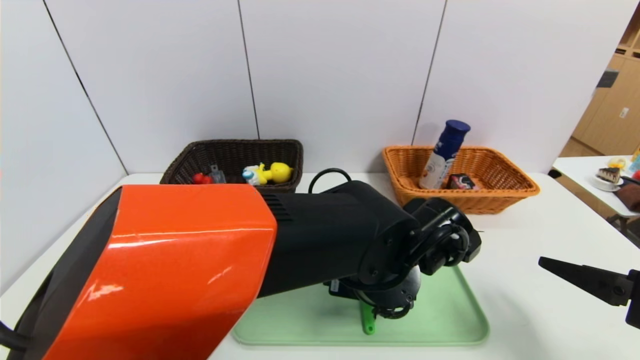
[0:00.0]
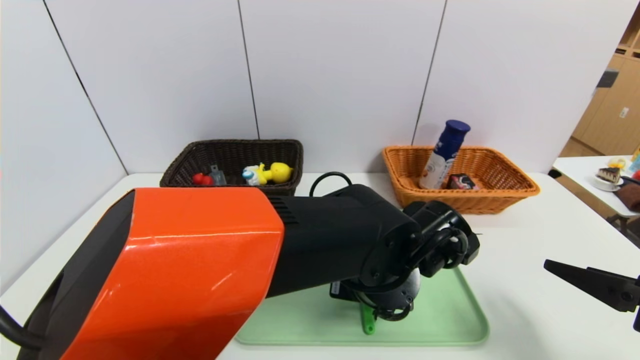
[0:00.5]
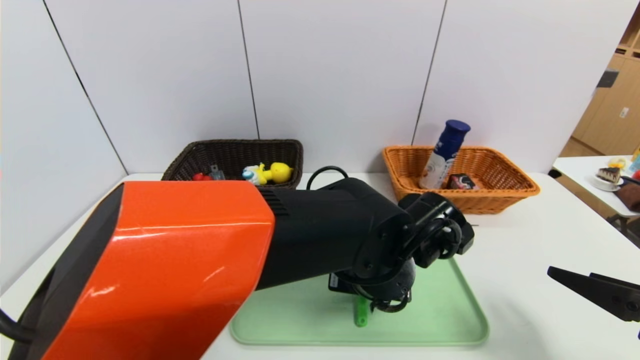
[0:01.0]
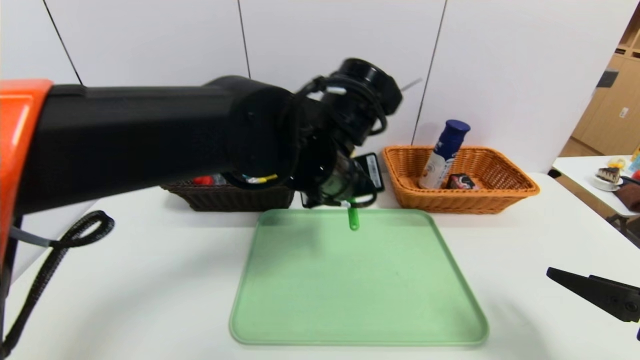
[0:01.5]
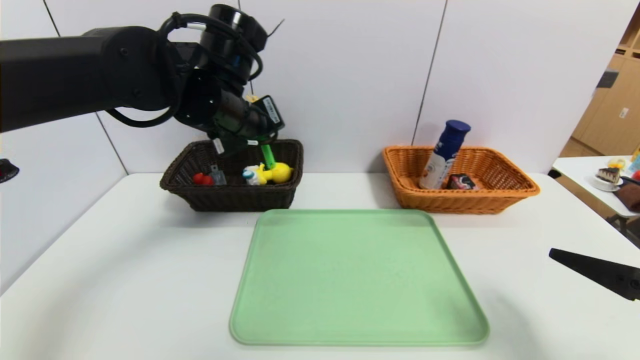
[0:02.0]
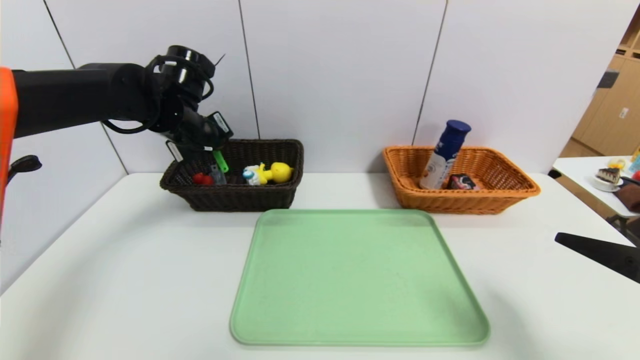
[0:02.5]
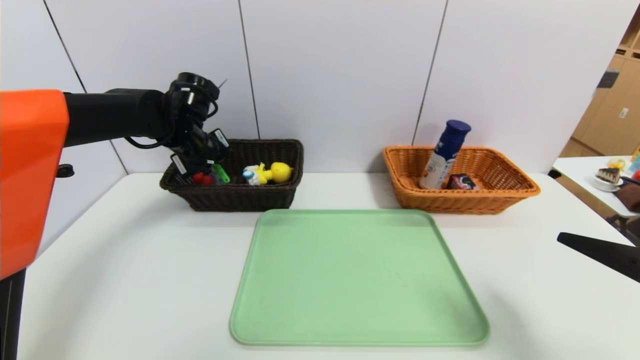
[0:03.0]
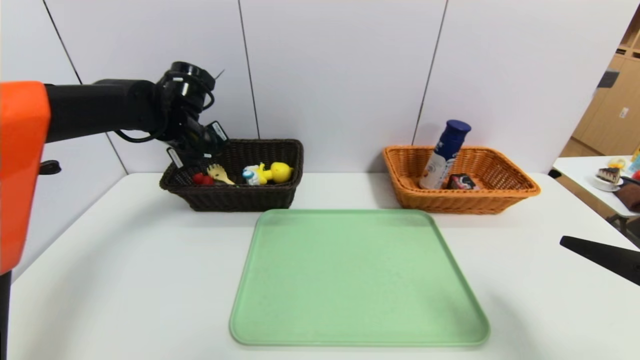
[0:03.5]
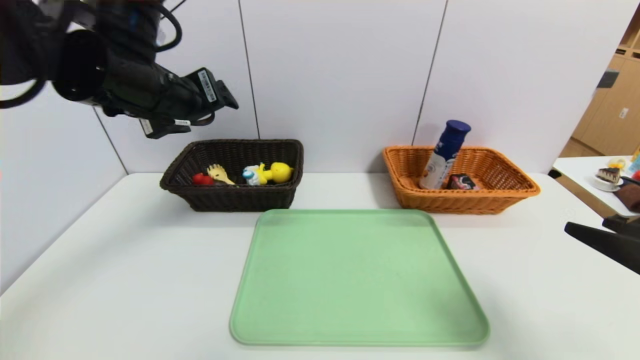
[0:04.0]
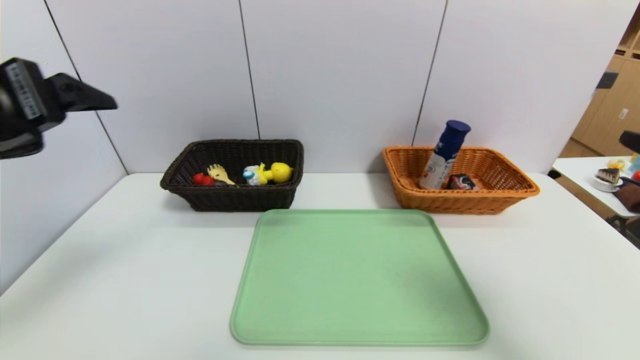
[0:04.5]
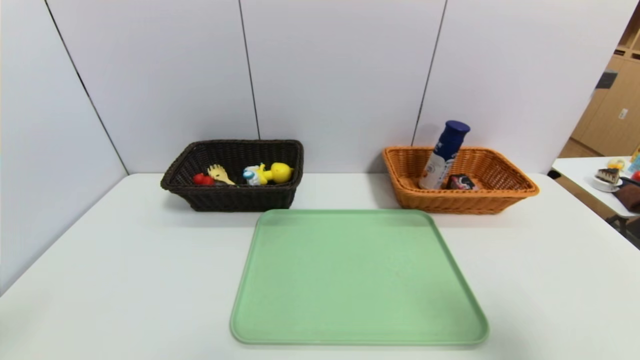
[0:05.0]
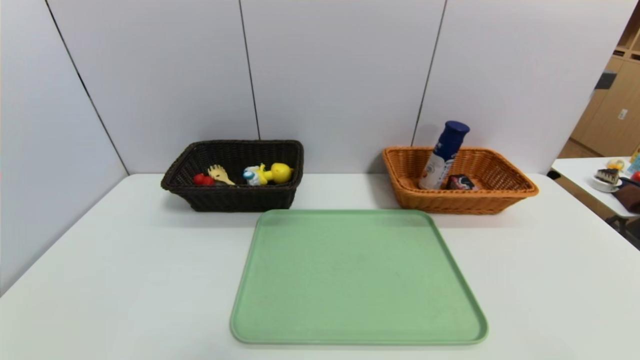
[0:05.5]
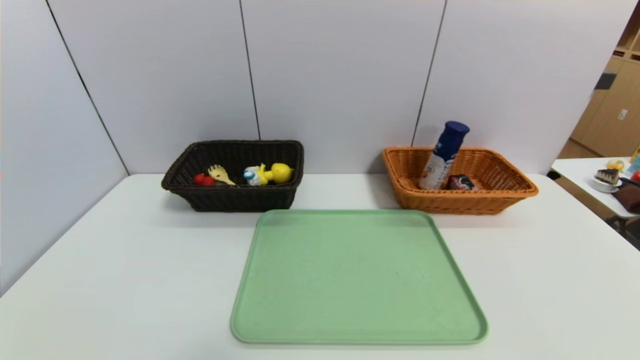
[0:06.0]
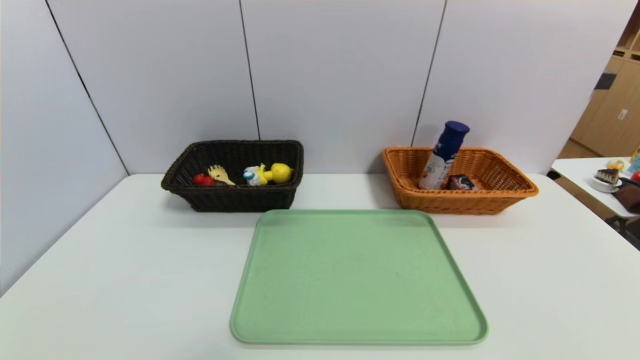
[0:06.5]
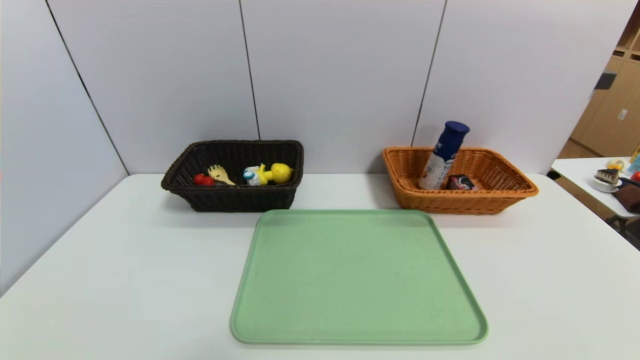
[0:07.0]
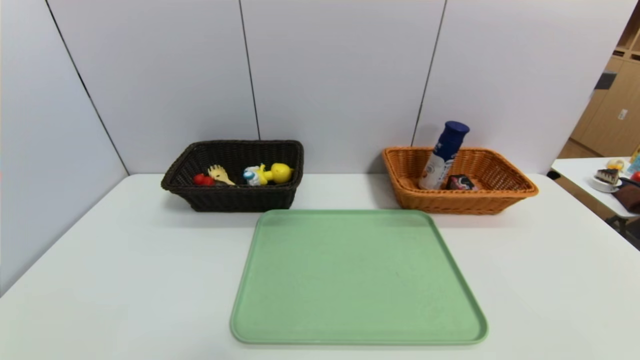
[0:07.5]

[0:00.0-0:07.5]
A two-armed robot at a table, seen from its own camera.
Task of the whole recording: place the food in the right basket with the right gripper, and place the non food items in the left basket with the left gripper.
Step, 0:00.0 to 0:05.0: Grasp the spoon and put it in the left basket.
0:00.0 to 0:02.0: The left gripper travels to the left, upward and forward by approximately 25 cm, and closes.
0:02.0 to 0:04.0: The left gripper travels to the left by roughly 5 cm, travels forward and back again, roughly 10 cm each way, and opens.
0:04.0 to 0:05.5: The left gripper goes roughly 40 cm backward and downward; the right gripper shifts roughly 10 cm backward.
